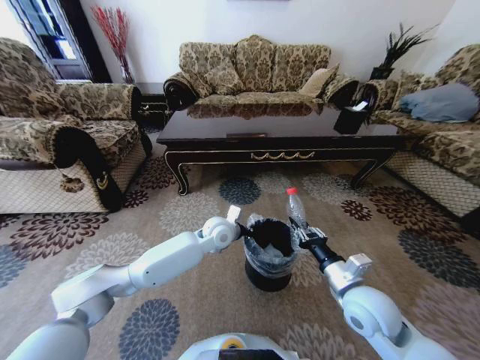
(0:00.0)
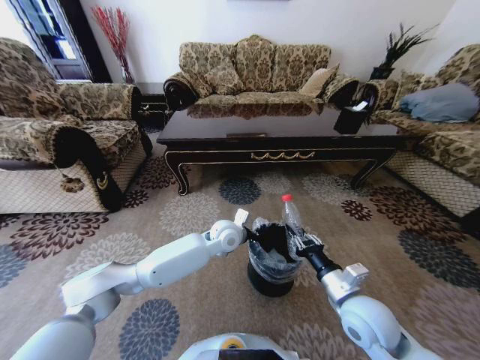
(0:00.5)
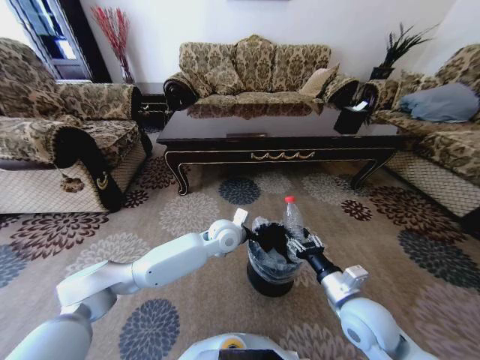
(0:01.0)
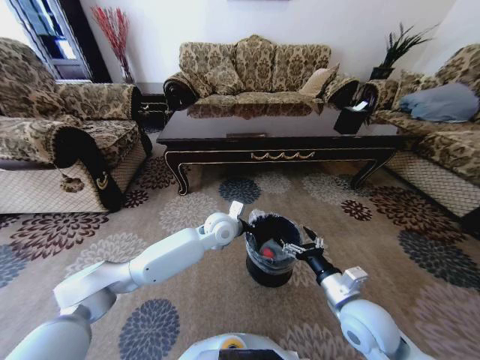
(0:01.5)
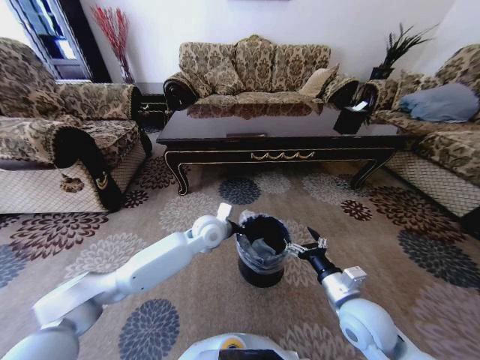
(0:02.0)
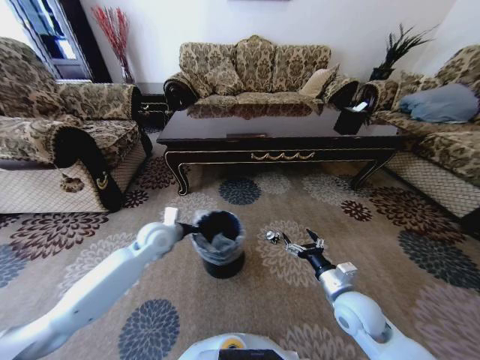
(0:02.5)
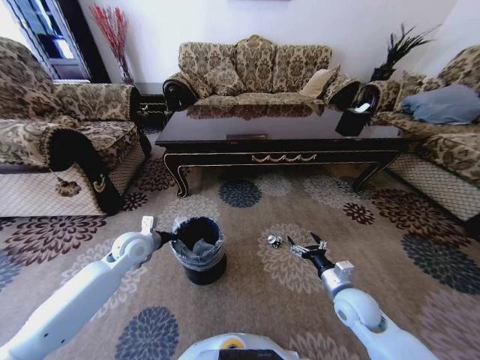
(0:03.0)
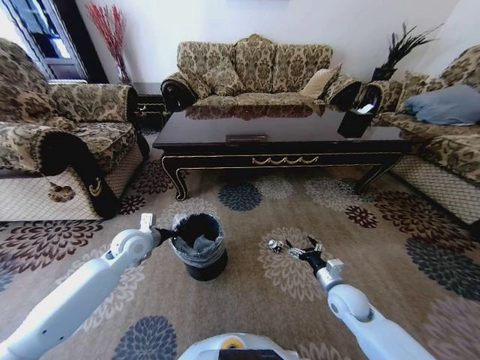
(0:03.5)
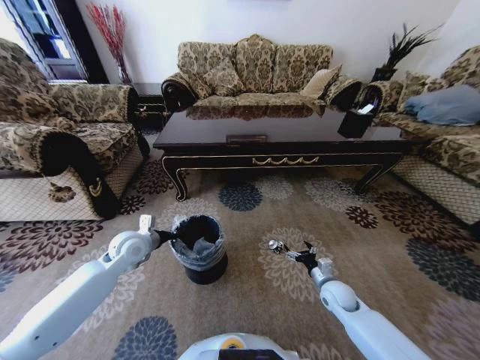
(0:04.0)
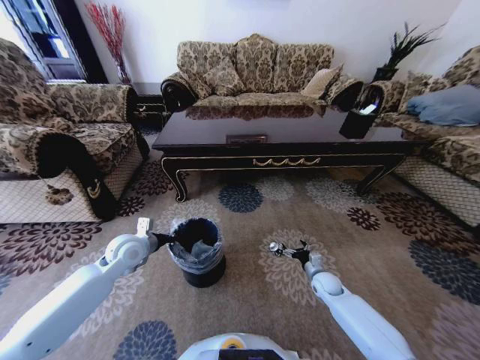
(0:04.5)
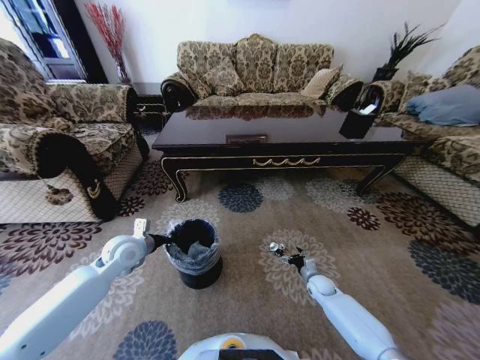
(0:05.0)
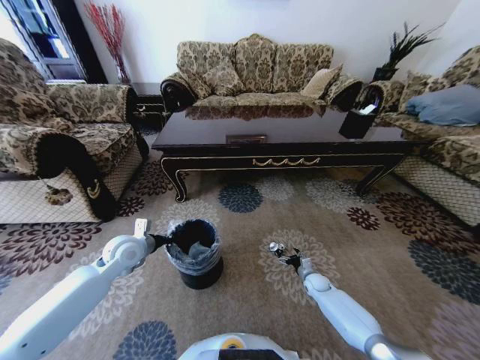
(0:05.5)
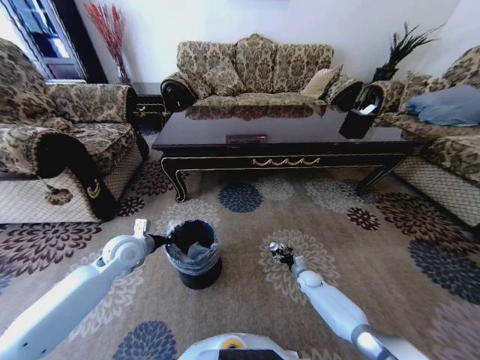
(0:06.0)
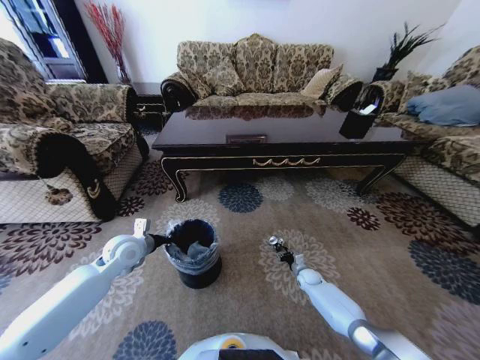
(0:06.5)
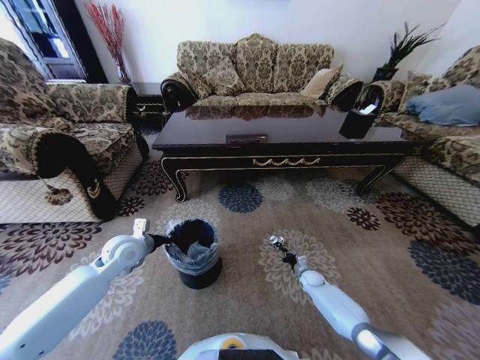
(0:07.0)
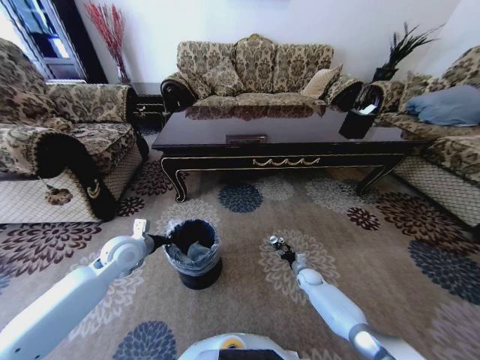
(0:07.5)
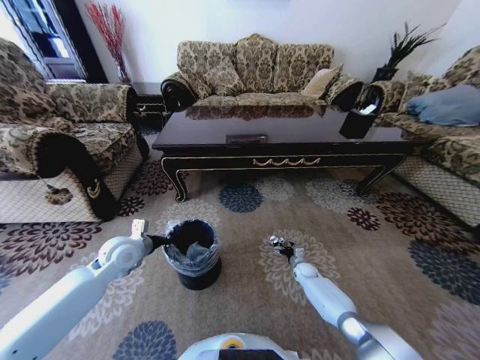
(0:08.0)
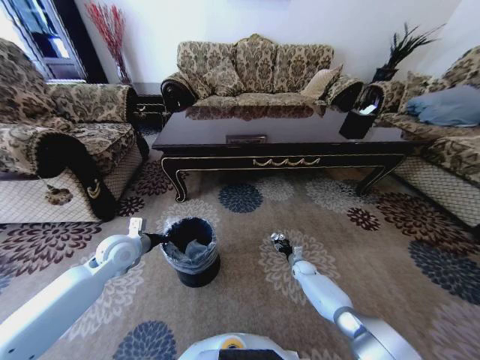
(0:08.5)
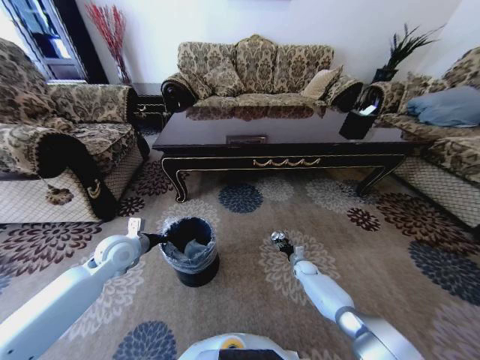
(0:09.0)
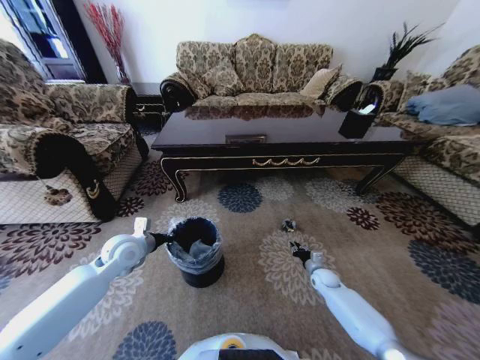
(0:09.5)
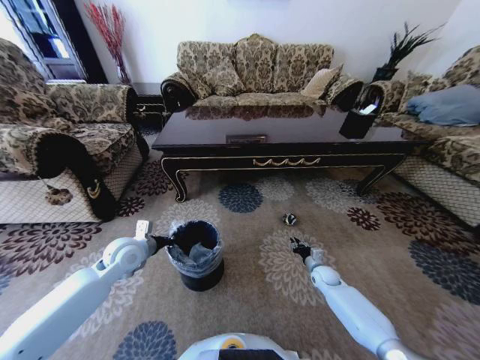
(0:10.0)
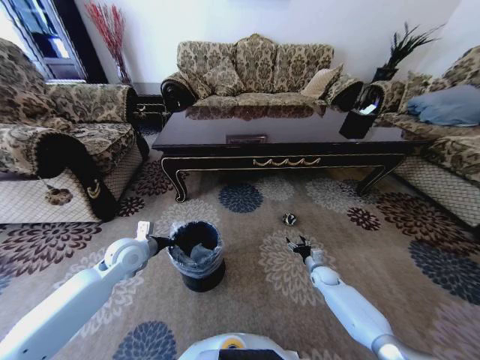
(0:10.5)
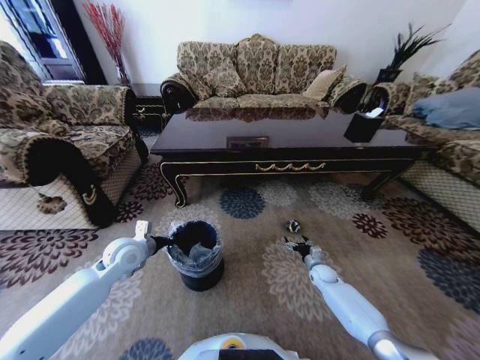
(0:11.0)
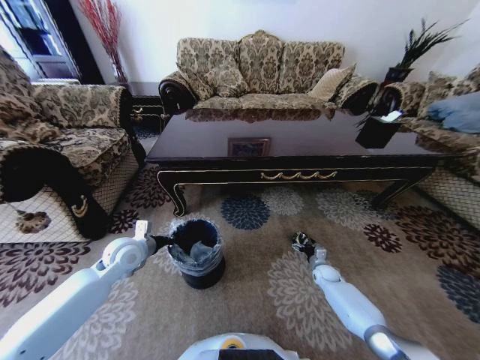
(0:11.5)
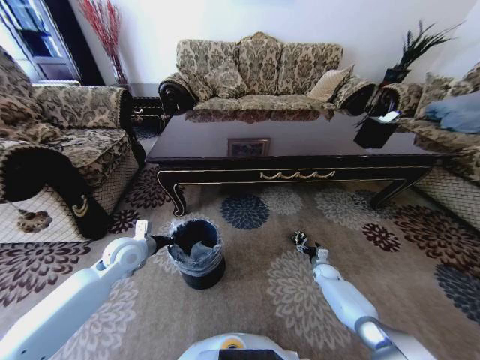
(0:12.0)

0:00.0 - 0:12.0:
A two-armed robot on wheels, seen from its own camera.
Task of the whole recording: Move to the front of the table and pick up the trash from the floor, then place it into the trash bin.
0:00.0 - 0:02.0: The right gripper opens up.
0:02.0 - 0:04.0: The right gripper shifts some 20 cm downward, forward and to the right; the left gripper is displaced to the left by some 20 cm.
0:04.0 - 0:06.0: The right gripper shifts about 15 cm downward and forward.
0:06.0 - 0:08.0: The right gripper closes, then reopens.
0:08.0 - 0:10.0: The right gripper shifts some 5 cm upward, and closes.
0:10.0 - 0:12.0: The right gripper changes place by some 5 cm, and opens.

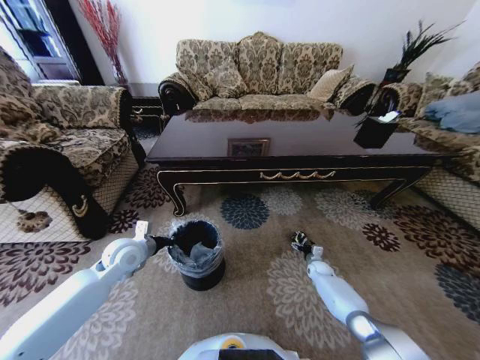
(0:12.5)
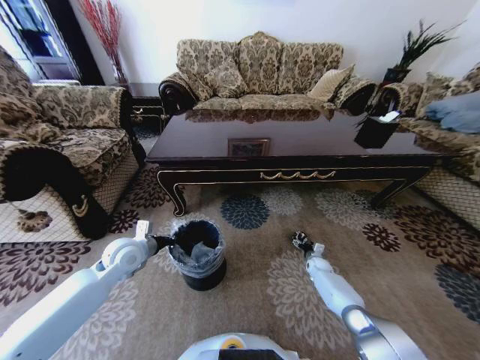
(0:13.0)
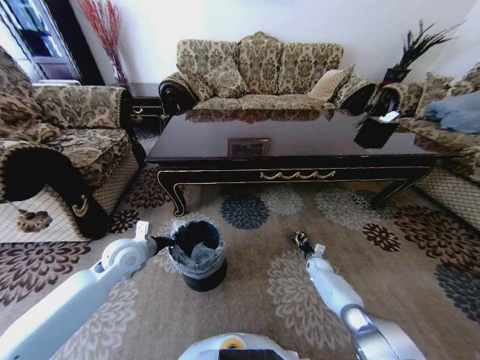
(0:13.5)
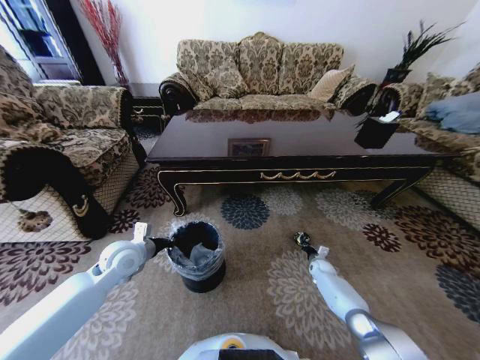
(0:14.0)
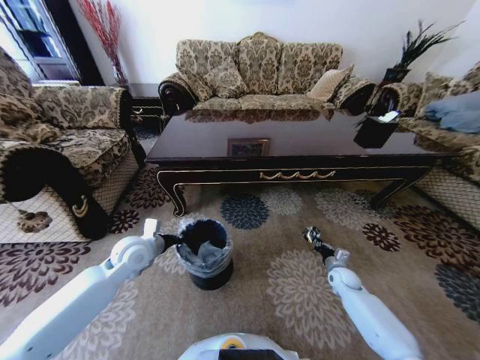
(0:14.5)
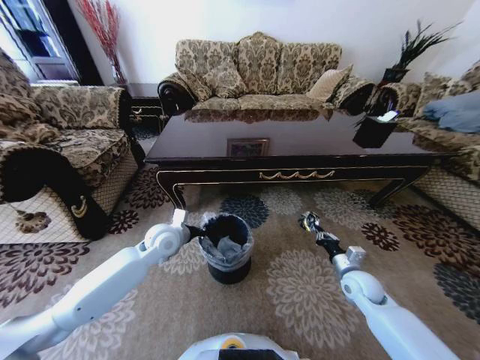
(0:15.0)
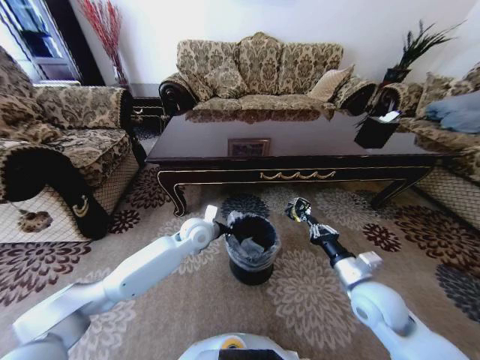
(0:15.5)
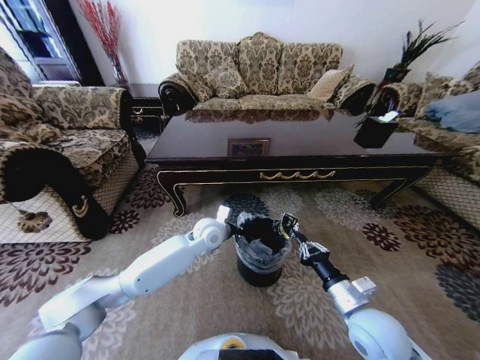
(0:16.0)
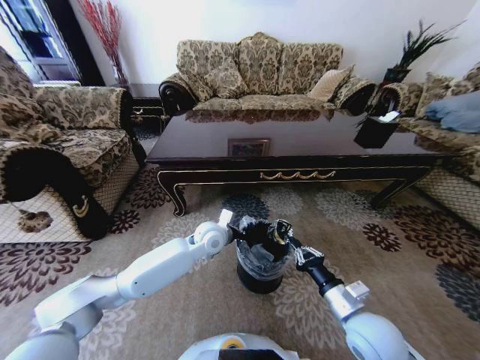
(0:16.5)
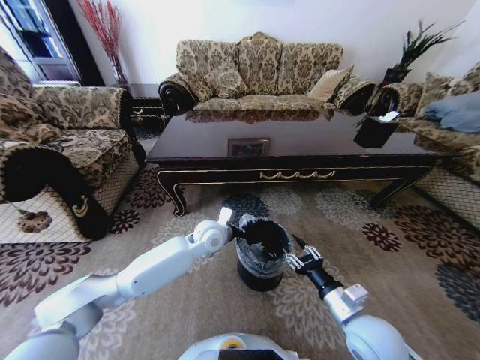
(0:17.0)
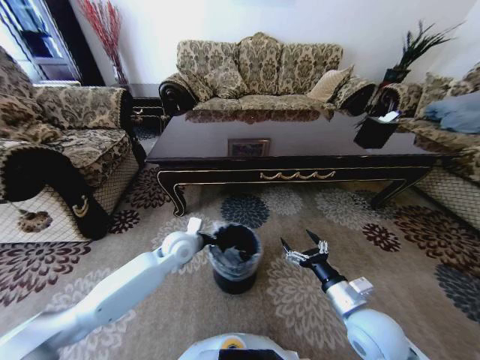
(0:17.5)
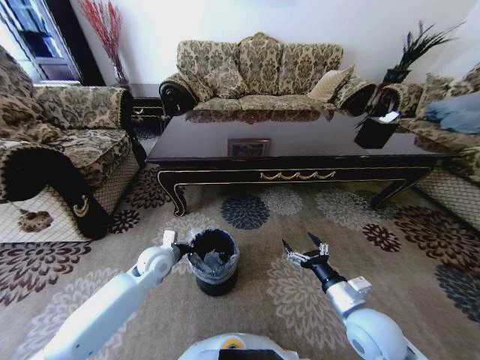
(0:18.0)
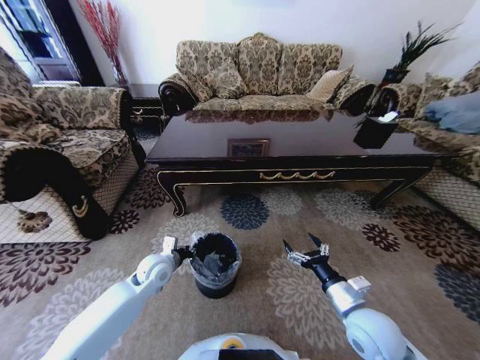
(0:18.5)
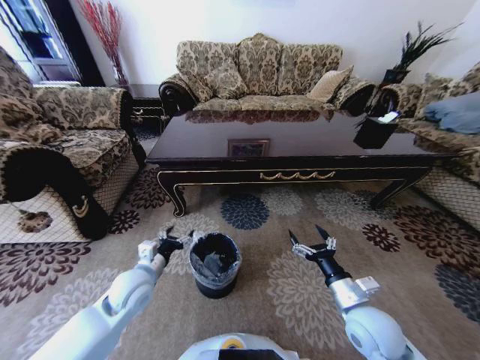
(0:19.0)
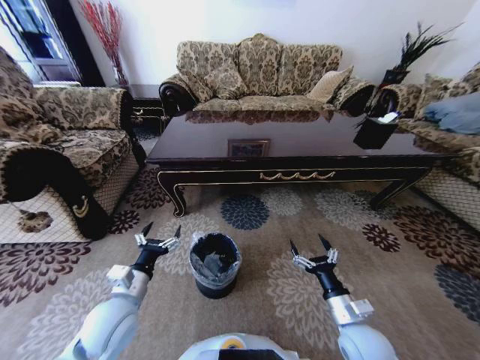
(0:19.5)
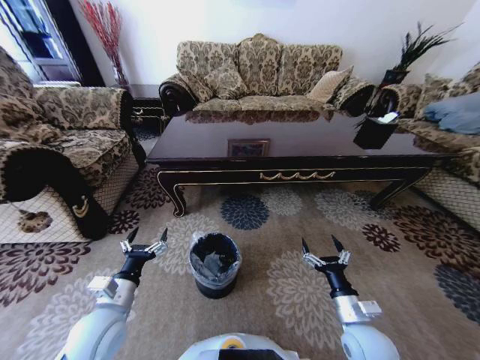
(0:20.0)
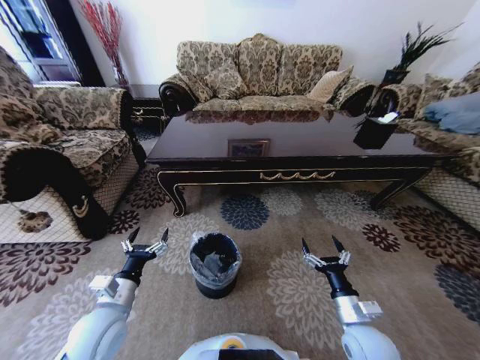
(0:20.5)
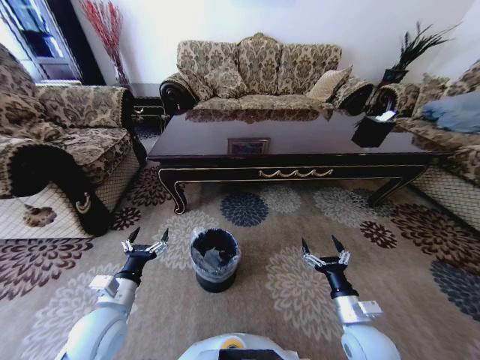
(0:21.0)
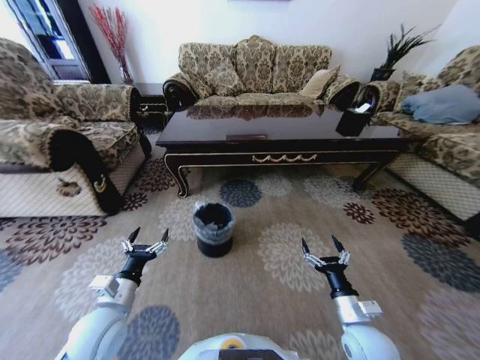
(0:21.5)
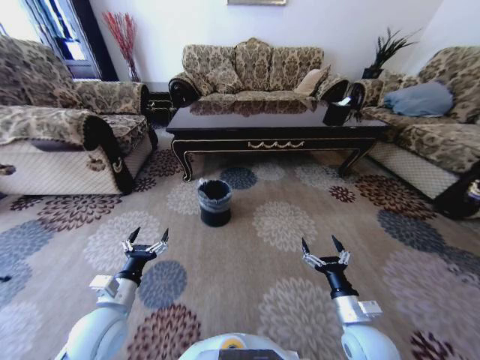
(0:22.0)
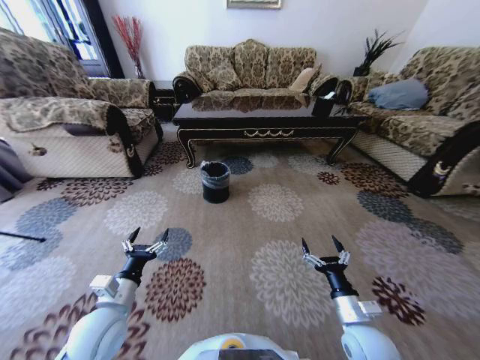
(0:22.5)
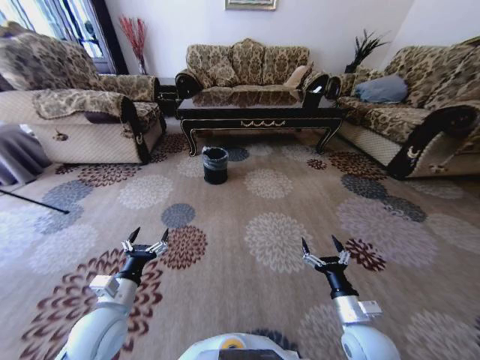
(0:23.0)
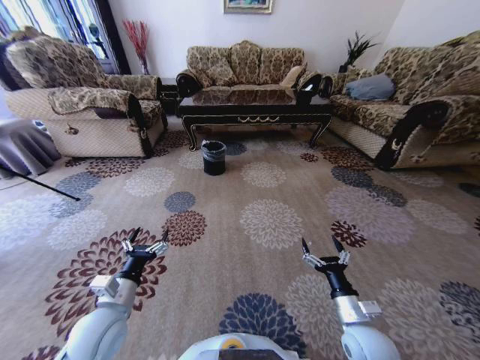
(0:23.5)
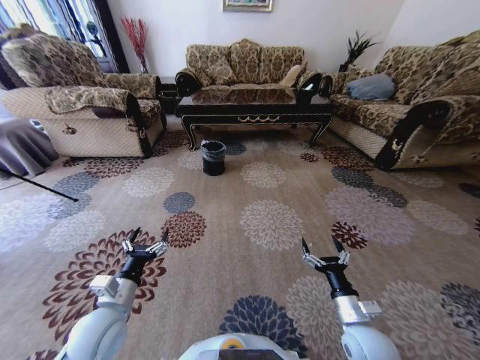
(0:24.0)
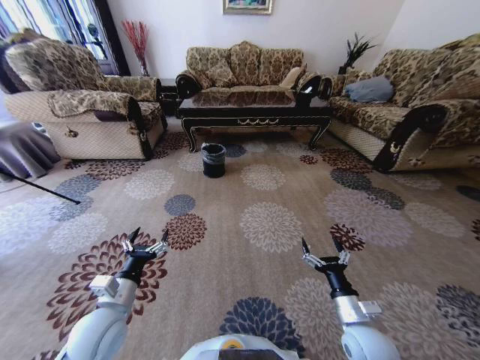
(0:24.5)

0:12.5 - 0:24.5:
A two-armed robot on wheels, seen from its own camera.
Task of the whole recording: Move to the front of the table and pick up the trash from the floor, then place it into the trash bin.
0:12.5 - 0:14.5: The right gripper is displaced upward and backward by some 10 cm, and closes up.
0:14.5 - 0:16.5: The right gripper goes some 30 cm upward, backward and to the left. The left gripper moves to the right, some 20 cm.
0:16.5 - 0:18.5: The right gripper opens. Meanwhile the left gripper moves to the left, downward and backward, roughly 20 cm.
0:18.5 - 0:20.5: The right gripper shifts roughly 5 cm downward, while the left gripper heads backward, covering about 15 cm, and opens up.

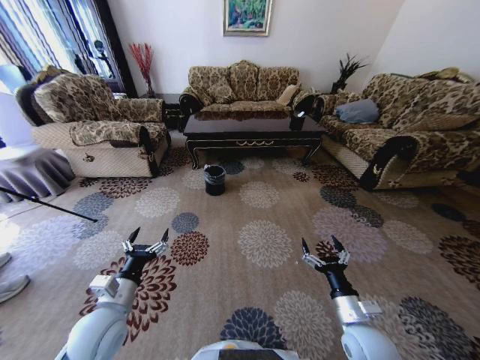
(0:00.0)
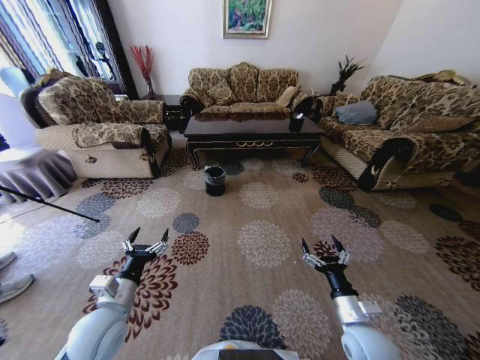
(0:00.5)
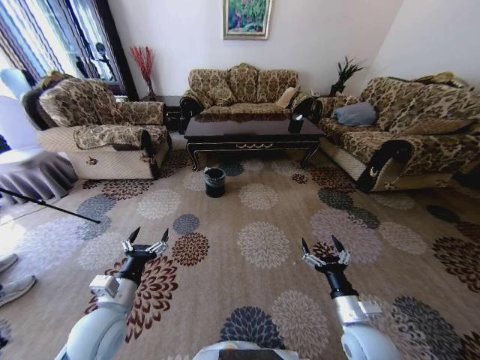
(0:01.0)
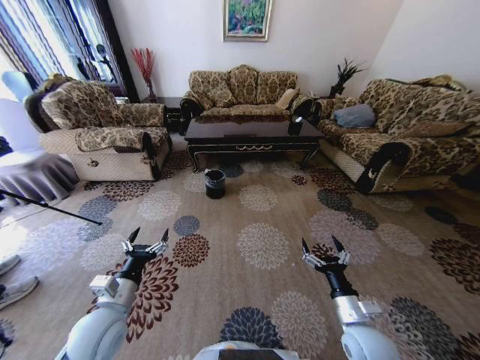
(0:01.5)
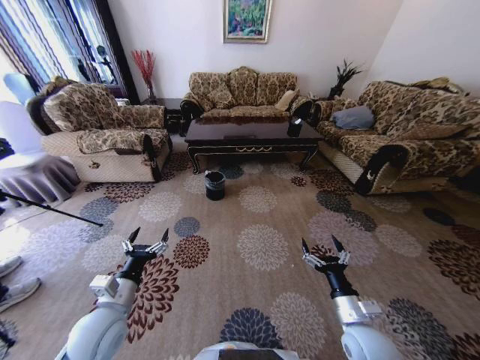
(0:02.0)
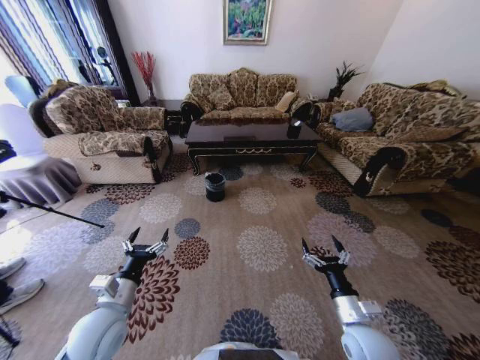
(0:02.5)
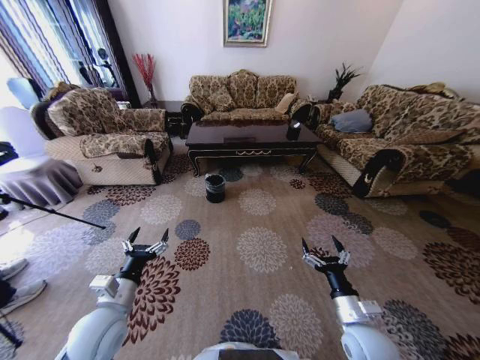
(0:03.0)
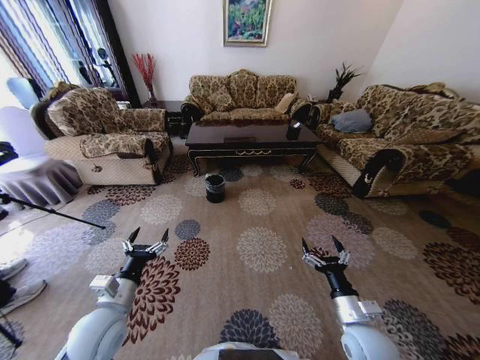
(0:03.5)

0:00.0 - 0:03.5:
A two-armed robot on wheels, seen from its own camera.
Task of the whole recording: Move to the front of the table and pick up the trash from the floor, then place it into the trash bin.
0:02.0 - 0:03.5: Both grippers stay about where they are.
